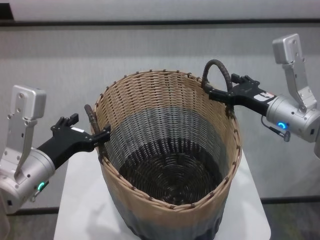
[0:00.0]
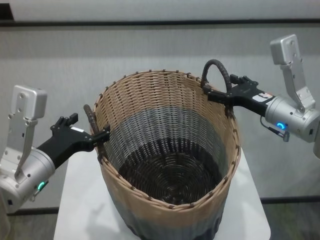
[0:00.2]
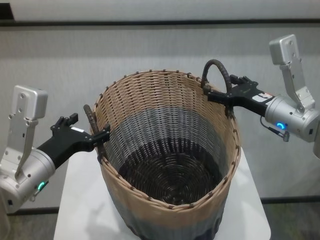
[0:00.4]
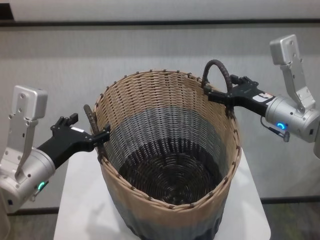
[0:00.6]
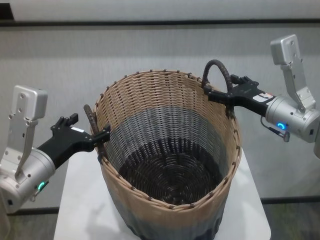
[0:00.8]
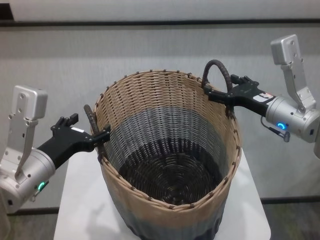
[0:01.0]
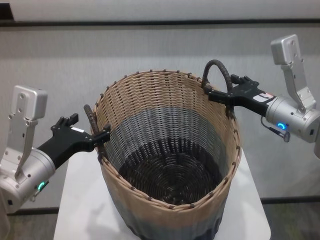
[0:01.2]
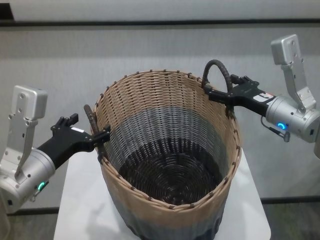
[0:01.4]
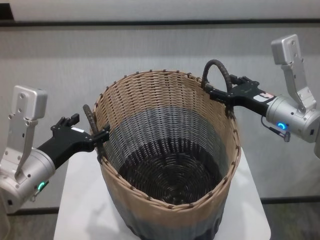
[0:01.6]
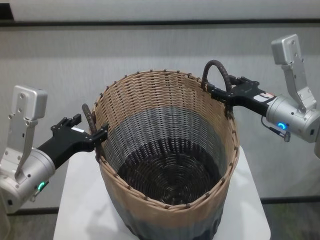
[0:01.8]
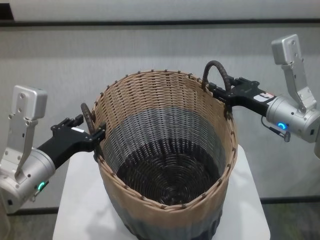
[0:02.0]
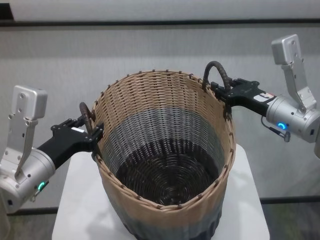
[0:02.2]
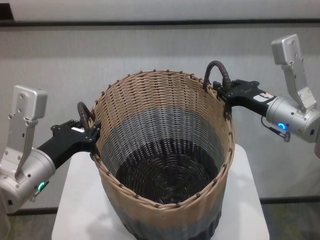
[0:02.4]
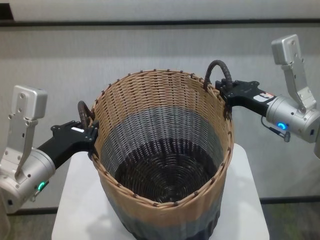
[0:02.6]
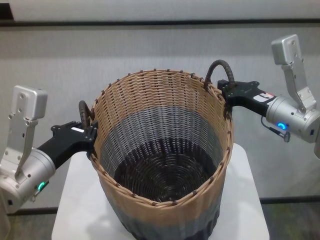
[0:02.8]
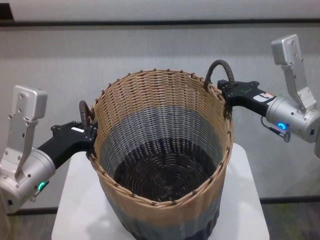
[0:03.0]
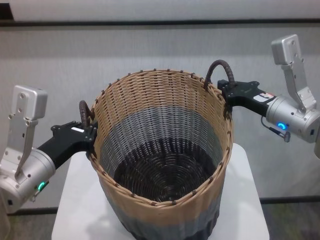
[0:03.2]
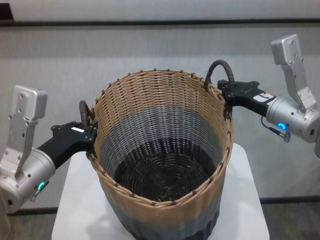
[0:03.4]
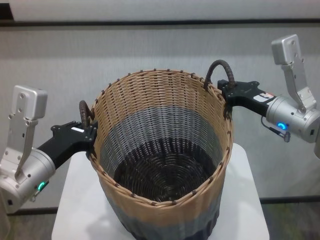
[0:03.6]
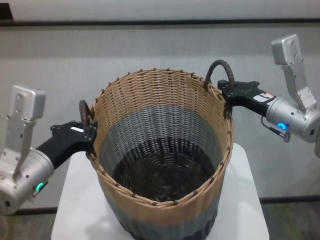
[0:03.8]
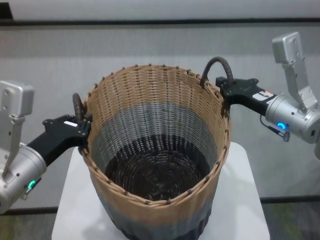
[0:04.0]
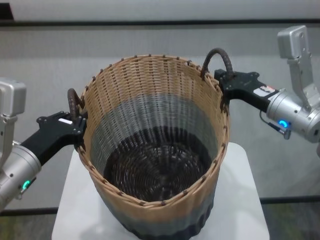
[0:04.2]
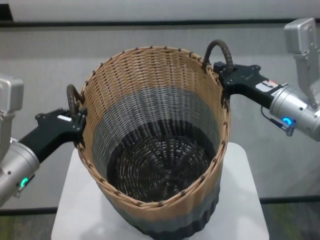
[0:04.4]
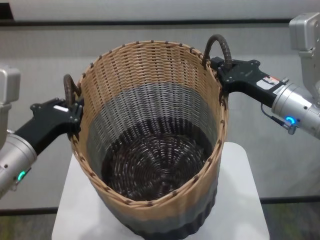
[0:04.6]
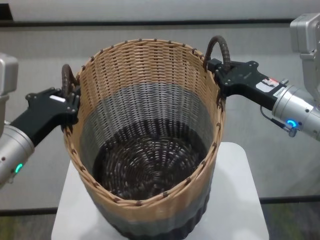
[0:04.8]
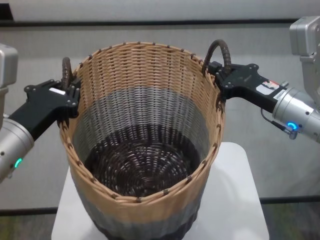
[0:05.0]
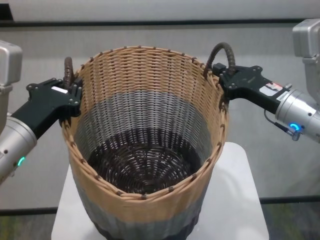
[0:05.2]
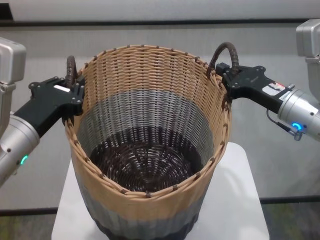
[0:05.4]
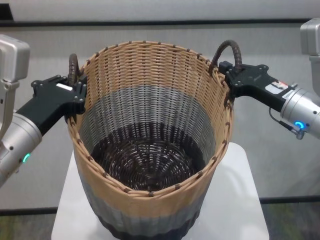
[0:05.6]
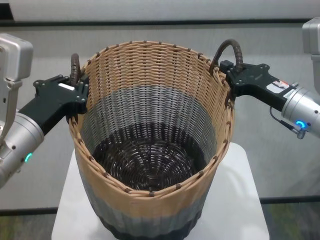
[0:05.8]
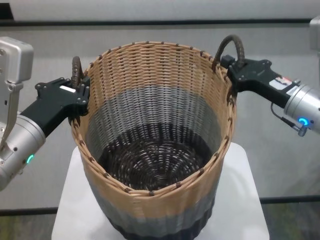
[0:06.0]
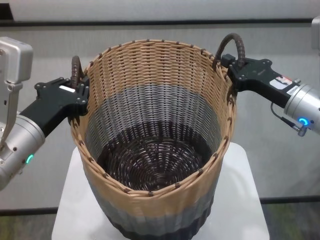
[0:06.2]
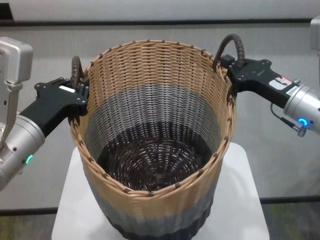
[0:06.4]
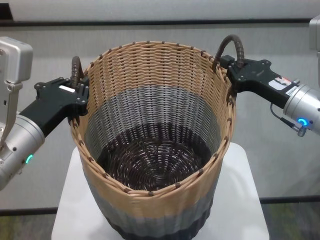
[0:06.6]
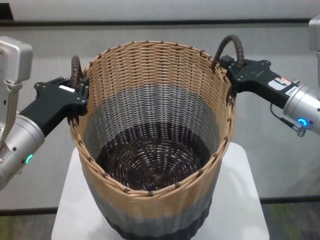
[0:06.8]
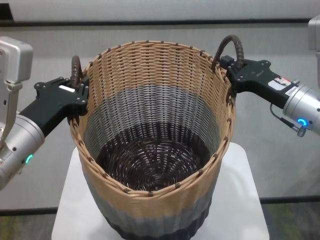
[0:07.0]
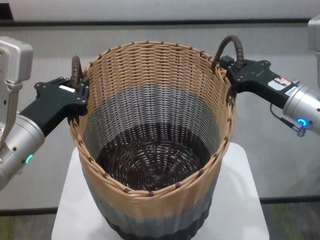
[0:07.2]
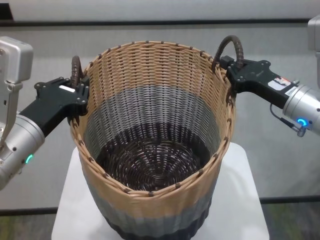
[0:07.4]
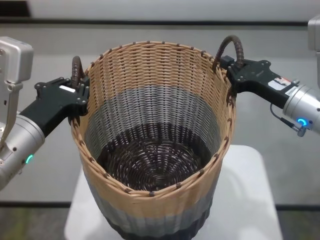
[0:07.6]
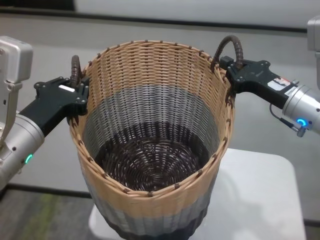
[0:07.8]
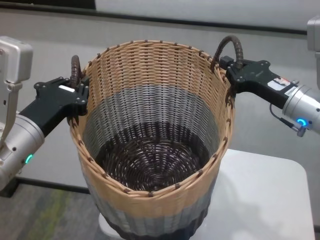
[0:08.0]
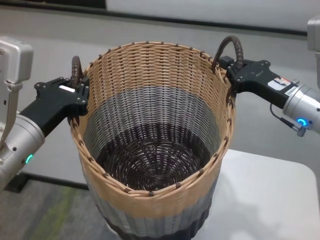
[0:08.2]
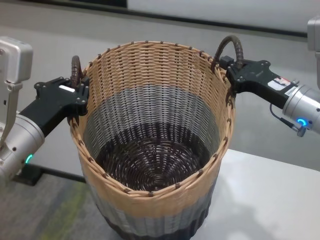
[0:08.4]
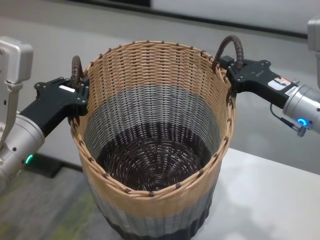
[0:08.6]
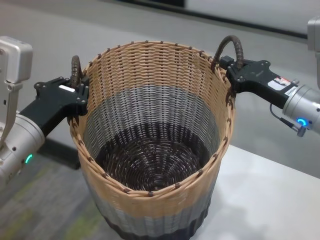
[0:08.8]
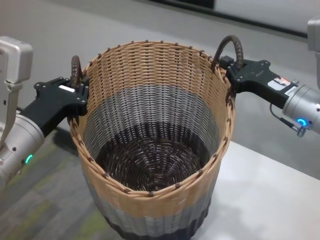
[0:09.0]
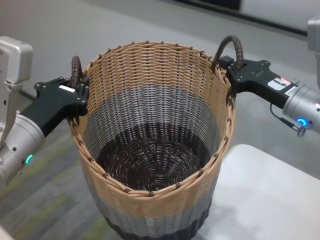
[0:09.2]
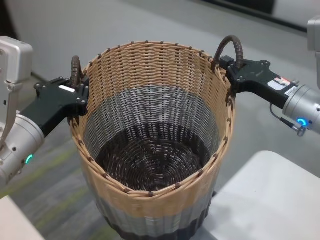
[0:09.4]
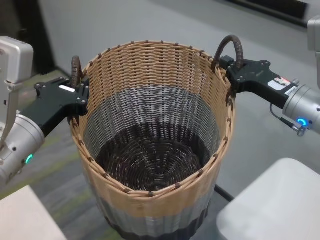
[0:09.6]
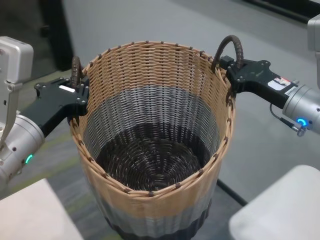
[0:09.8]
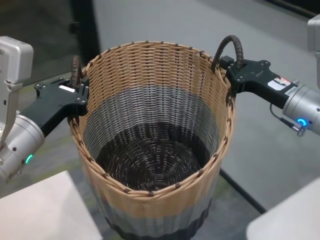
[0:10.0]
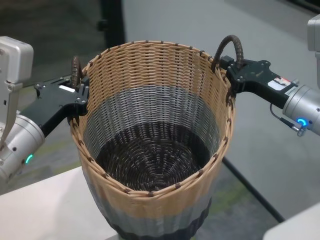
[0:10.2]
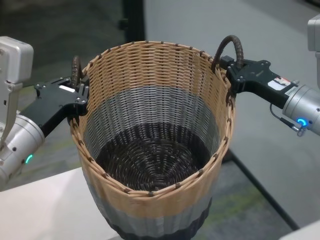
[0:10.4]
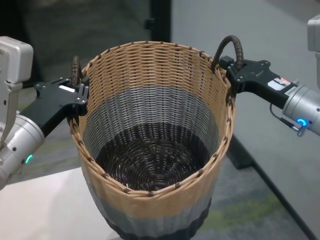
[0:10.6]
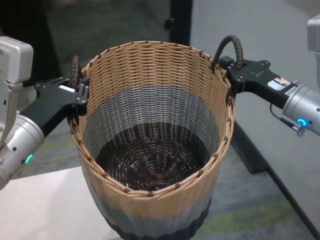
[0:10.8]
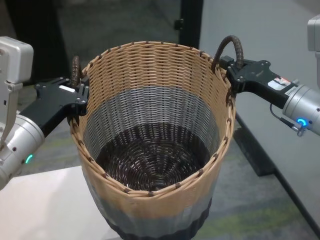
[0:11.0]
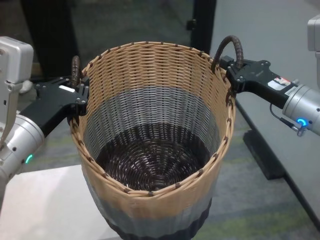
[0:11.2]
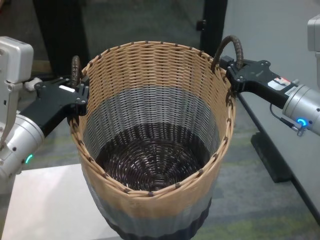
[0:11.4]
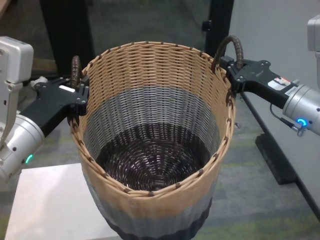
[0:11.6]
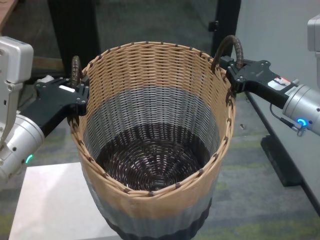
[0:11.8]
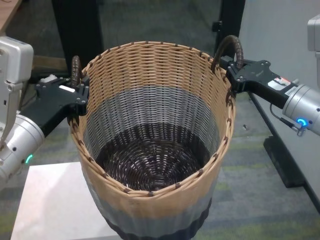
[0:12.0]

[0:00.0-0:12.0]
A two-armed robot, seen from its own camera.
Task of the whole recording: carry the clothes basket in coordination with both hands.
Step, 0:00.0 to 0:03.0: Grasp the basket with both grippers.

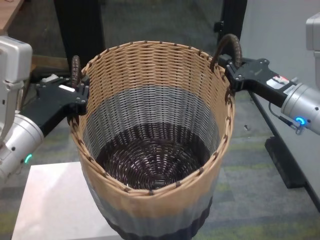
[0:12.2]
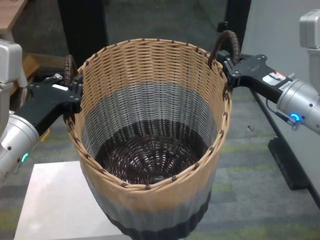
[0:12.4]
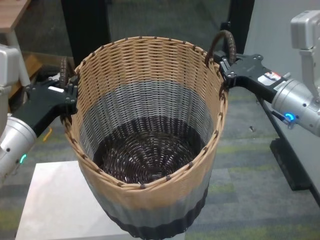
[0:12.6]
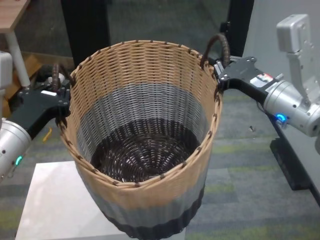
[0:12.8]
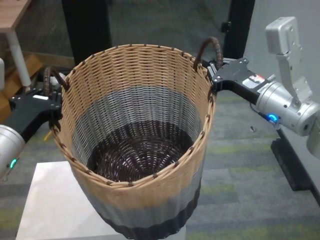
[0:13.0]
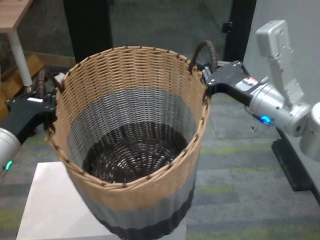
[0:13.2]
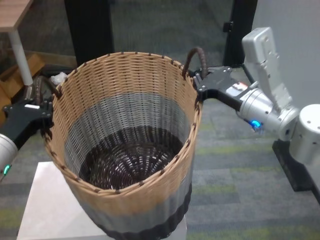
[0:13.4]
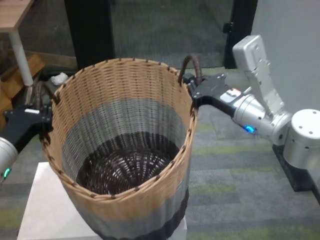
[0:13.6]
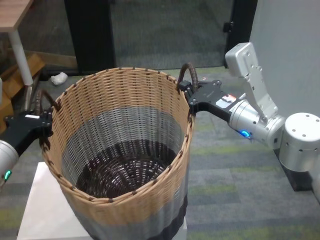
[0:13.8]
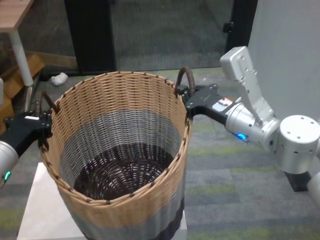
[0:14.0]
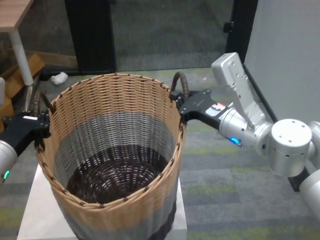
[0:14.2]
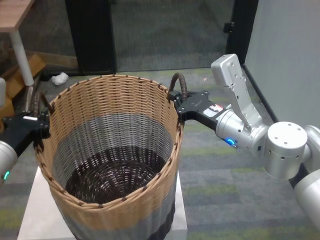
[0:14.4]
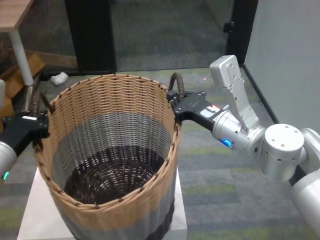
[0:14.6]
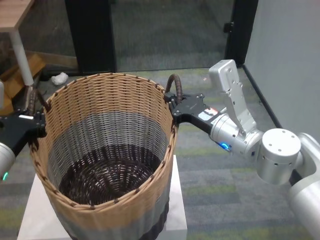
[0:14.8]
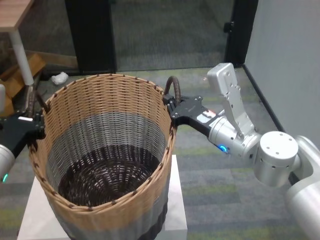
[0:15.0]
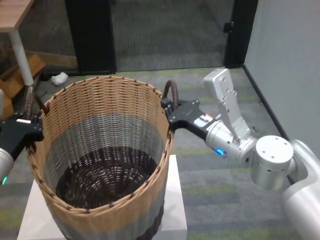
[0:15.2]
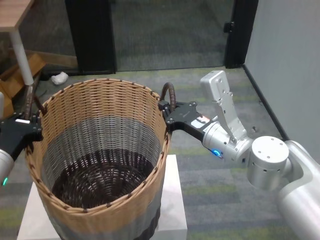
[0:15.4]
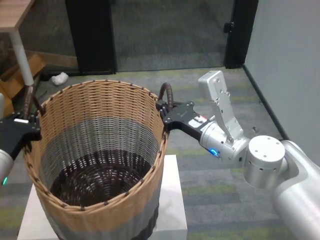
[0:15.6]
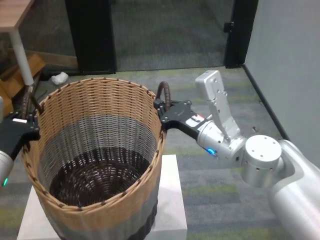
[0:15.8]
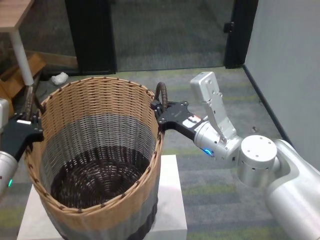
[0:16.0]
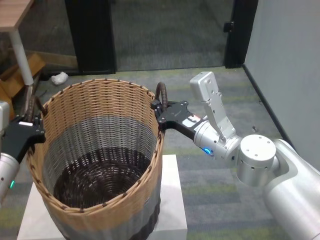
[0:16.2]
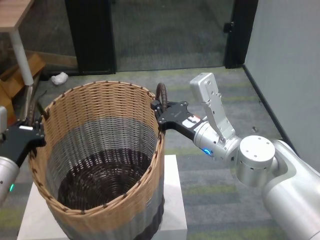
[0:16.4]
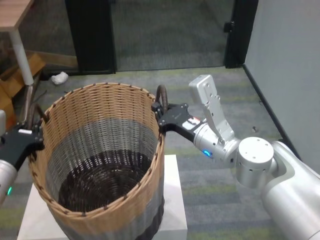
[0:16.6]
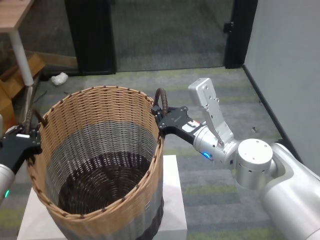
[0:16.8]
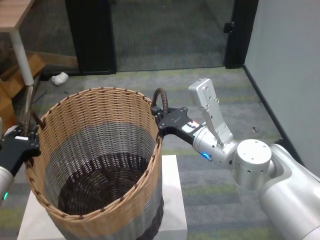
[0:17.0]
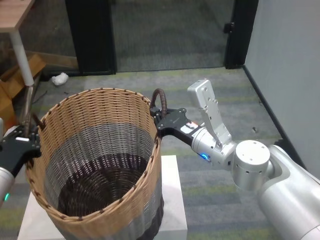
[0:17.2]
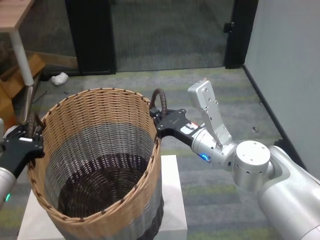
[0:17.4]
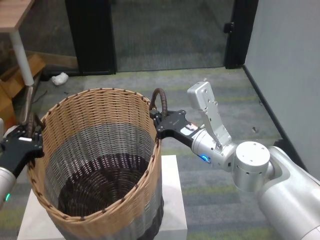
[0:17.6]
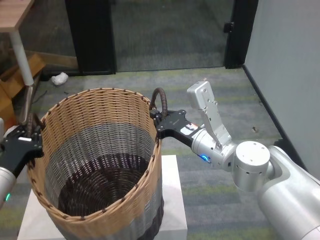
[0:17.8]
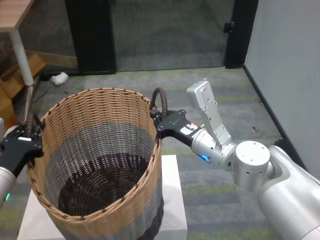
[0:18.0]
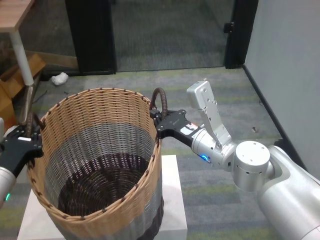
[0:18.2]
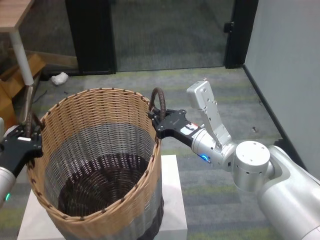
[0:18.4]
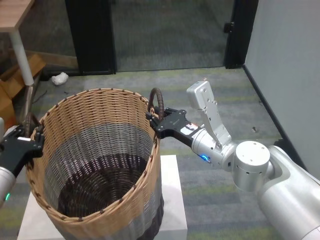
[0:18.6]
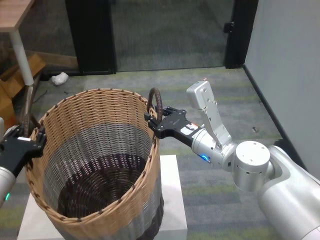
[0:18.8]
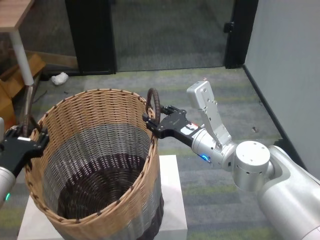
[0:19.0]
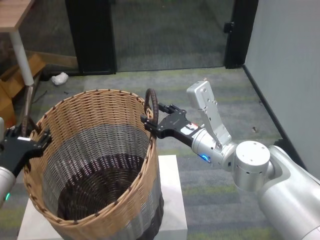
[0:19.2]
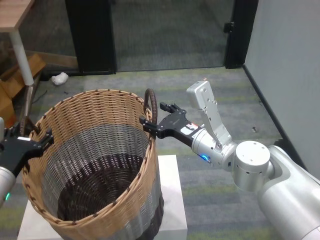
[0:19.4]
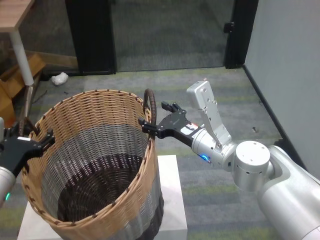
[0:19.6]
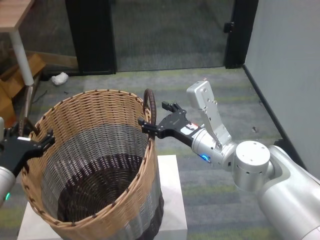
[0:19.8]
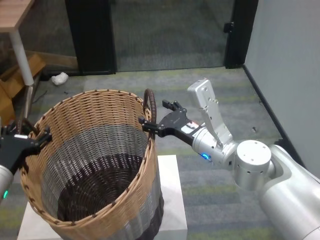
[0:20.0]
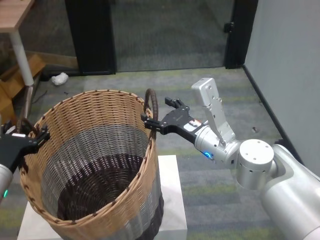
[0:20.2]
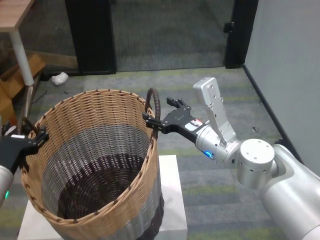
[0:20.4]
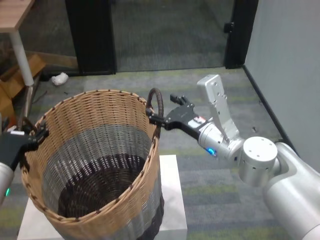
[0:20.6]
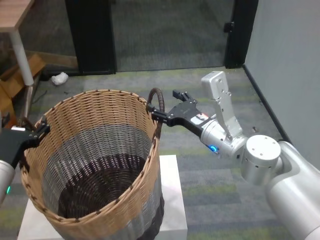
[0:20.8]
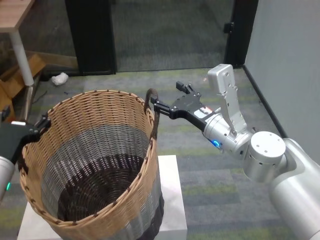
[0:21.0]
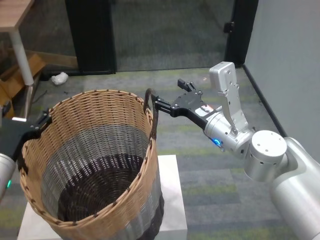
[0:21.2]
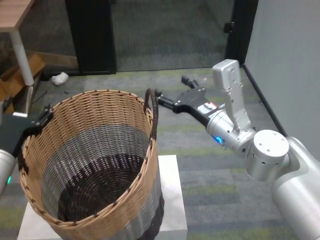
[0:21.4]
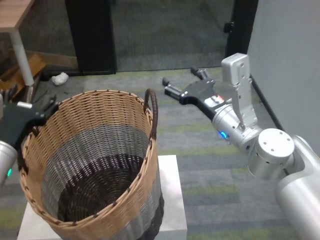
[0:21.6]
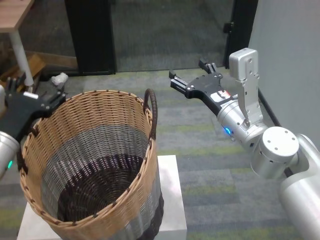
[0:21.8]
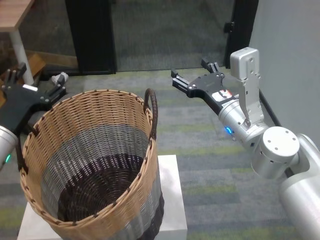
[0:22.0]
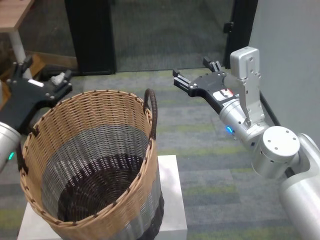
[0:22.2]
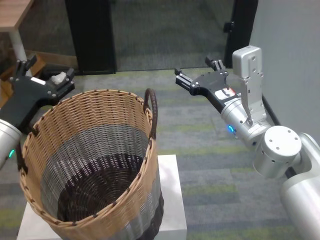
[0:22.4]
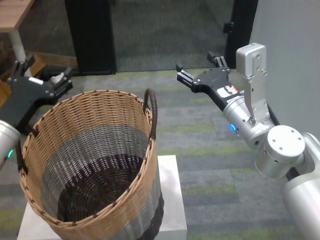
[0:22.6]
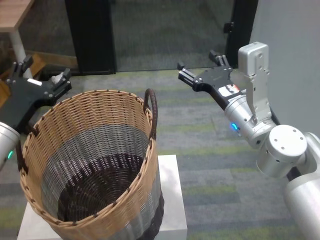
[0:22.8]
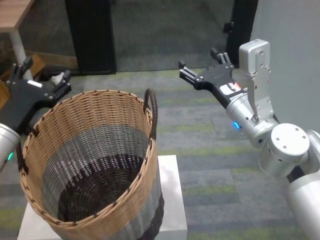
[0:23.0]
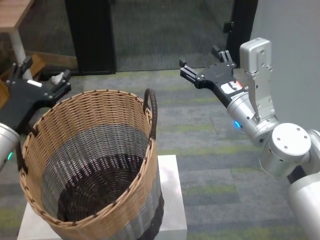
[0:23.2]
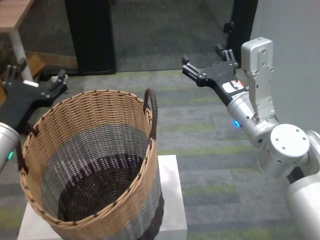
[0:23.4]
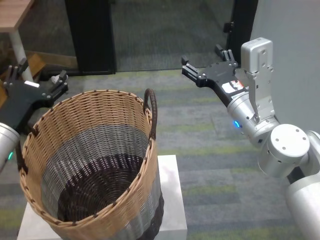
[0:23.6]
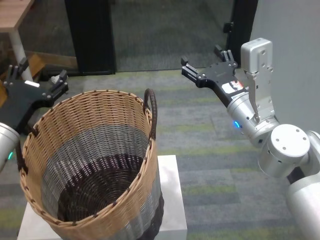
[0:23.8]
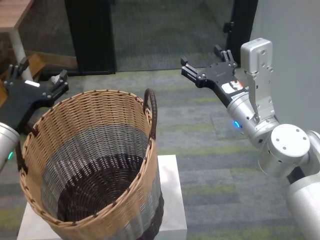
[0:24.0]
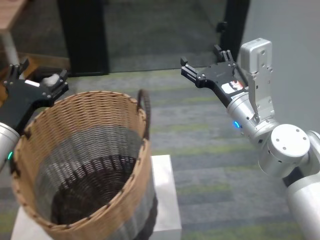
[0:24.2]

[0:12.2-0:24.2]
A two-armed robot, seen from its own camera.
Task of the whole recording: carry the clothes basket in coordination with both hands.
Step, 0:13.4 to 0:20.0: Place the basket on the table with both grippers.
